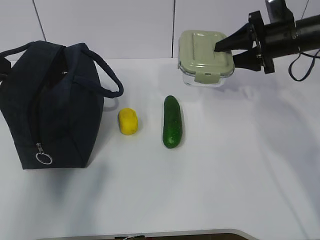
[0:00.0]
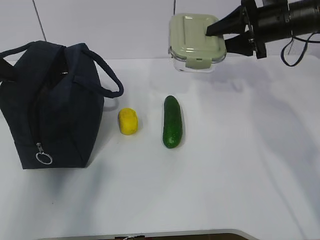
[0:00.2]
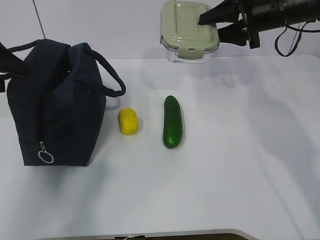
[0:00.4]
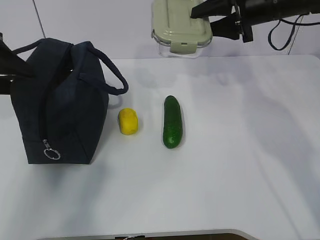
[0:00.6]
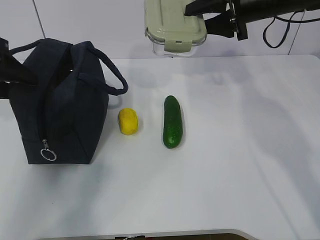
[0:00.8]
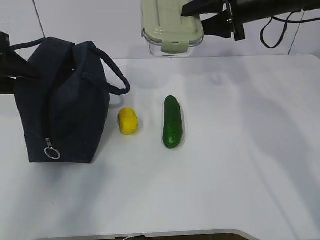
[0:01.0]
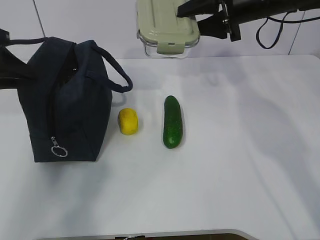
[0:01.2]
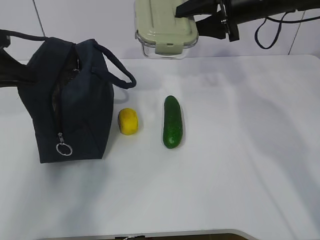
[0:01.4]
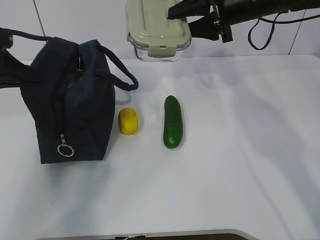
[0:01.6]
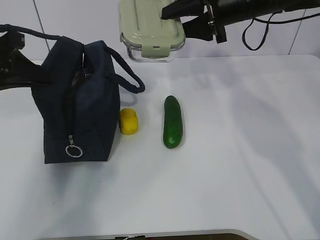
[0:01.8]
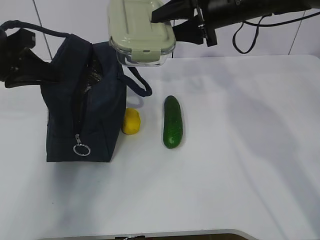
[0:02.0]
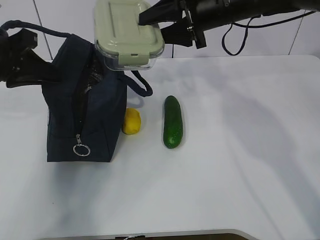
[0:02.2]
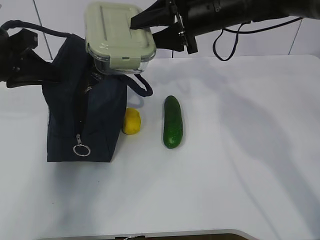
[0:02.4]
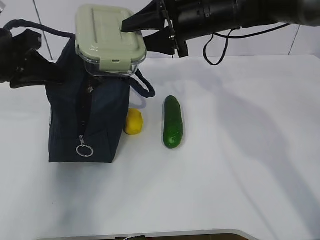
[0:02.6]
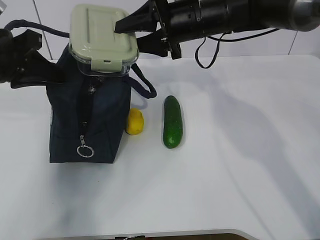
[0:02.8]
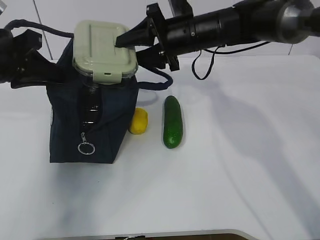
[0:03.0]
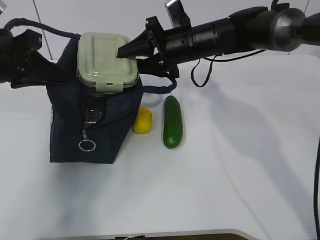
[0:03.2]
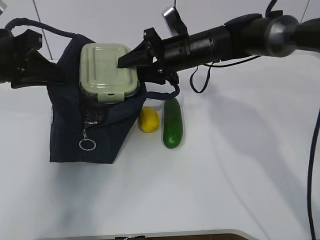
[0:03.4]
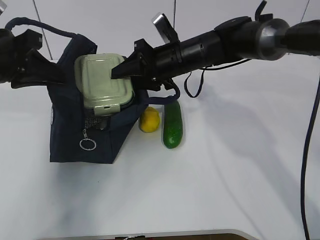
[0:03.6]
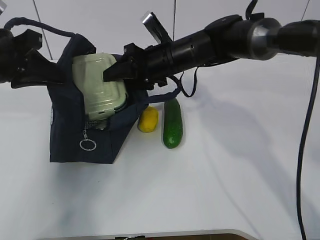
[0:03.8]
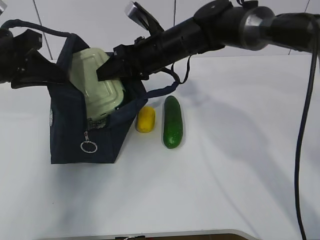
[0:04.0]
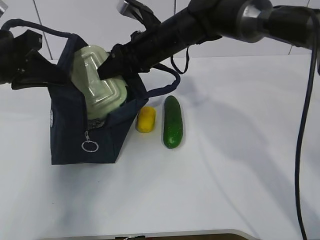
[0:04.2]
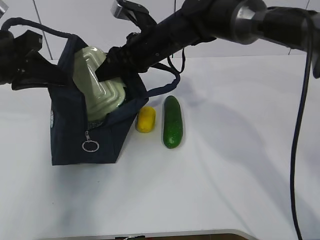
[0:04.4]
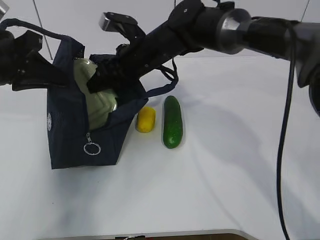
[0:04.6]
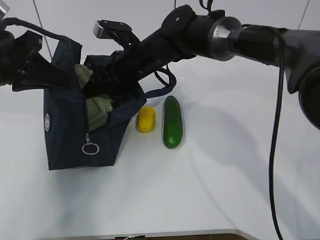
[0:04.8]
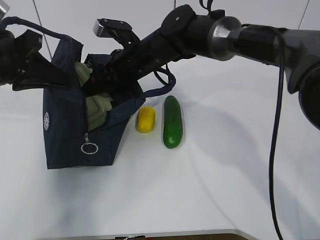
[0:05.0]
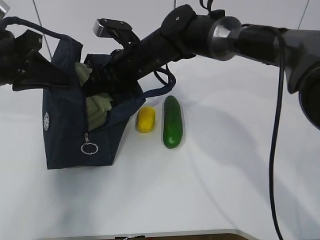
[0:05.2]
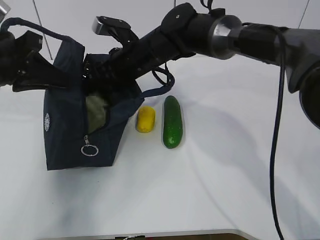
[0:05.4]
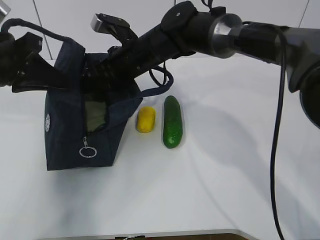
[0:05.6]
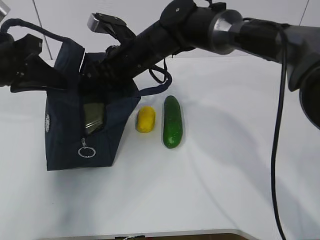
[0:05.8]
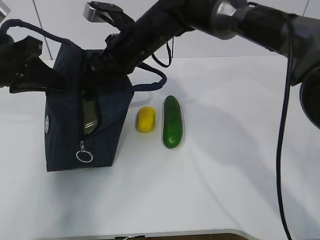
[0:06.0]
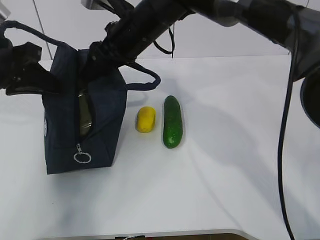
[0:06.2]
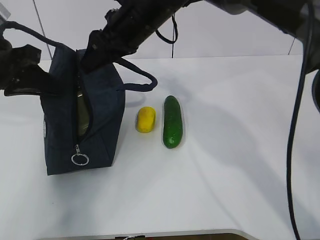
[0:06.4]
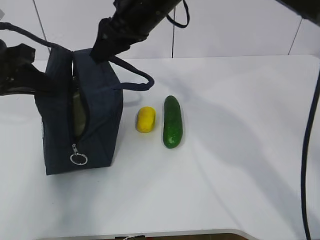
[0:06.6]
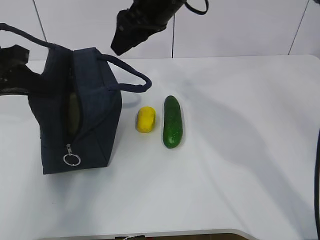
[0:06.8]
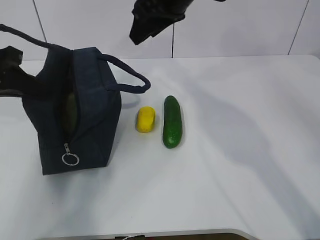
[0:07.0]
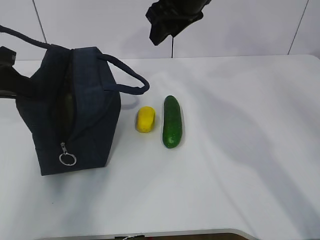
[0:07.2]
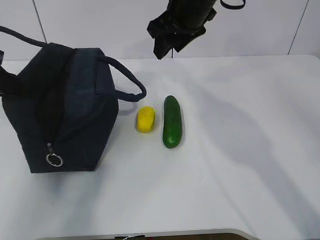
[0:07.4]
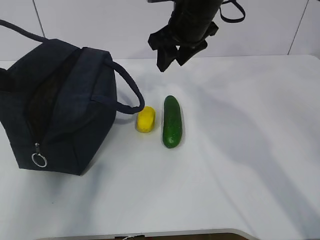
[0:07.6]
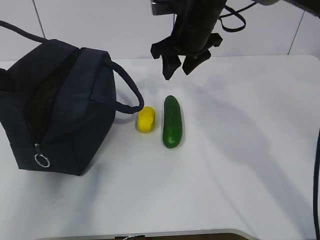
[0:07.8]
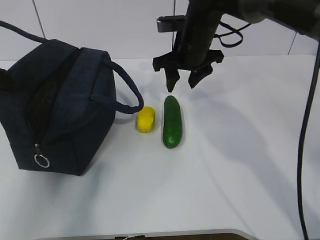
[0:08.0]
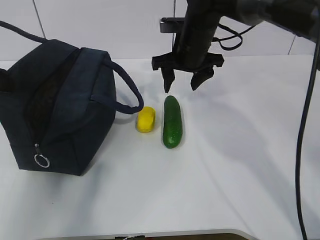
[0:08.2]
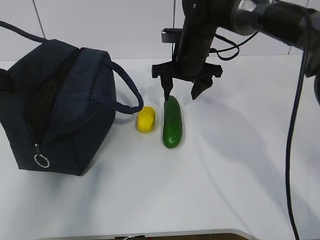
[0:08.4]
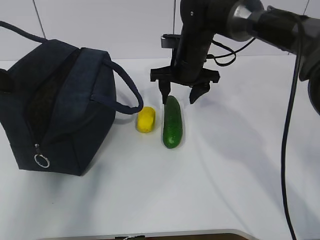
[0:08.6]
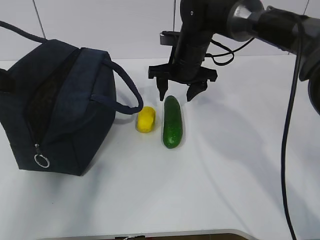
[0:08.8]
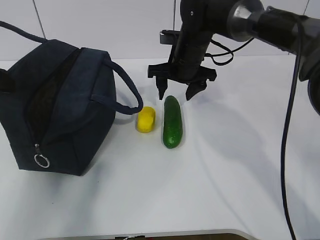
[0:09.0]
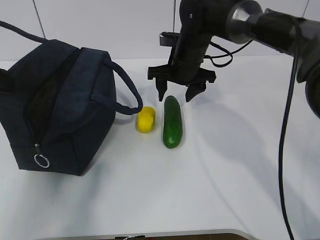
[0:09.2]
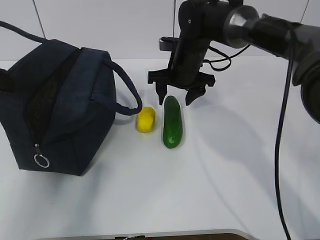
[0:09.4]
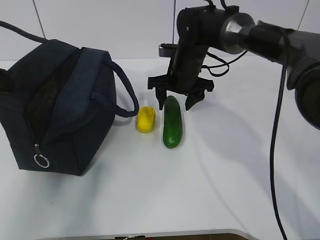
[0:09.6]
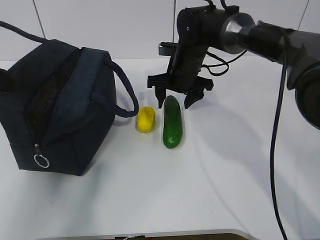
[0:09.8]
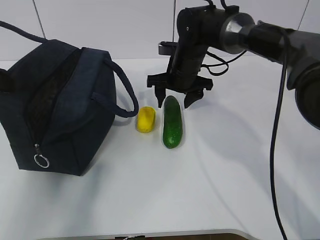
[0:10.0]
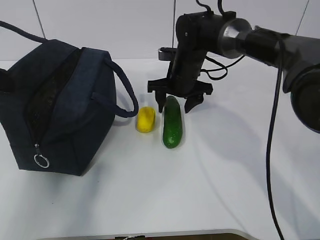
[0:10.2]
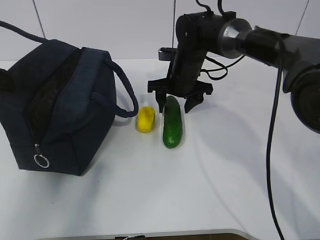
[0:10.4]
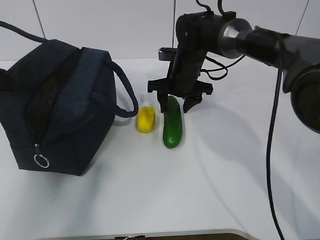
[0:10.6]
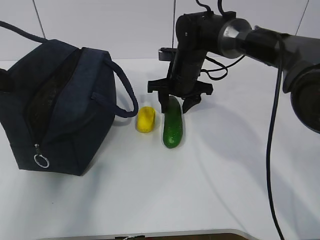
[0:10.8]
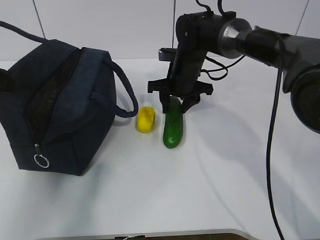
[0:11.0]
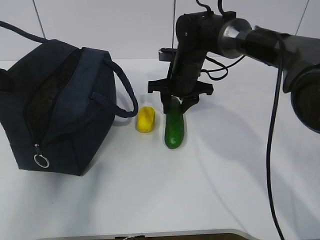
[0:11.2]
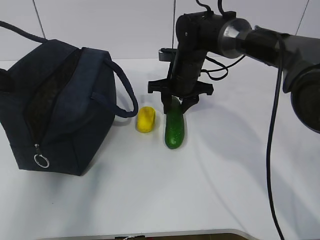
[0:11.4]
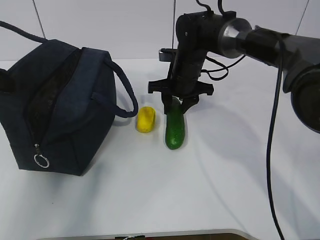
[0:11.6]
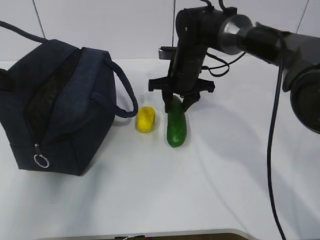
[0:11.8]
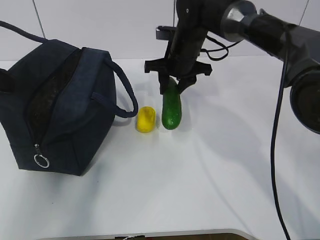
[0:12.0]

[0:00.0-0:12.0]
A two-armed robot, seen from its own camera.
Step, 0:00.0 to 0:02.0: Place it into the bag with your right hand.
Step, 0:02.2 to 0:06.8: Grab the cucumber with your right hand.
Step, 0:07.2 to 0:09.4: Place it into the bag with your right hand.
0:00.0 to 0:01.6: The left gripper changes place by about 5 cm, and closes up; the right gripper shifts some 10 cm to the left and upward.
0:01.6 to 0:03.0: The right gripper is displaced to the left and downward by about 10 cm.
0:03.0 to 0:04.4: The right gripper moves to the left, approximately 5 cm.
0:06.0 to 0:07.6: The left gripper travels to the left by about 5 cm. Meanwhile the right gripper goes about 10 cm to the right and upward.
0:07.6 to 0:09.0: The right gripper shifts approximately 10 cm downward.
0:09.0 to 0:10.4: There are only small adjustments of the grippers.
0:10.4 to 0:12.0: The right gripper closes its fingers.

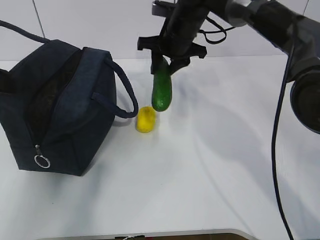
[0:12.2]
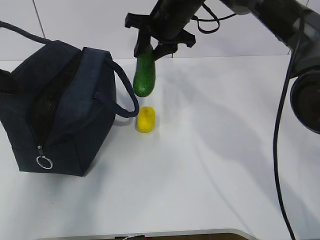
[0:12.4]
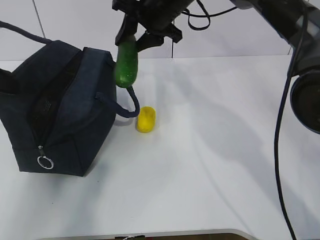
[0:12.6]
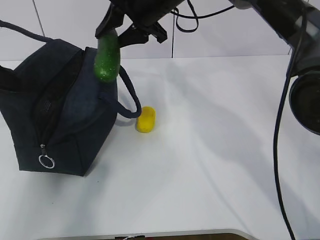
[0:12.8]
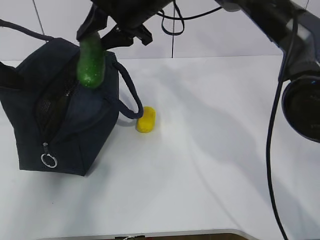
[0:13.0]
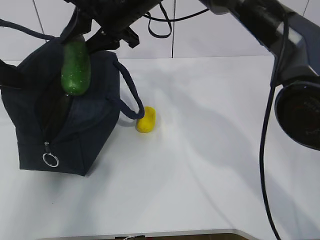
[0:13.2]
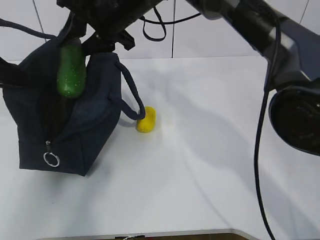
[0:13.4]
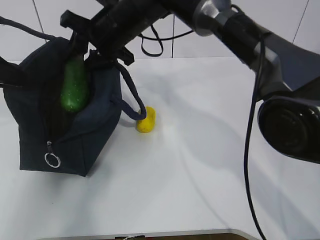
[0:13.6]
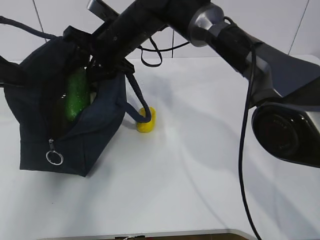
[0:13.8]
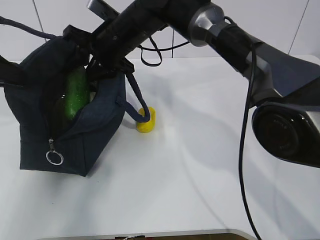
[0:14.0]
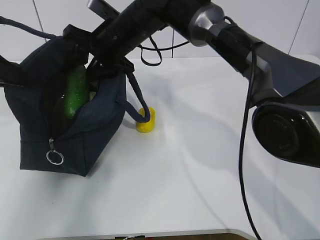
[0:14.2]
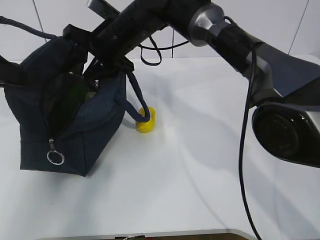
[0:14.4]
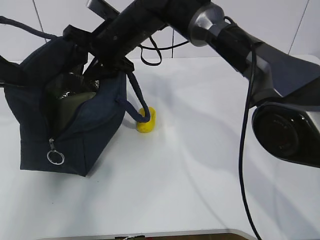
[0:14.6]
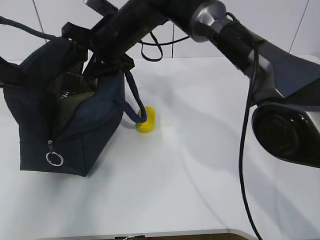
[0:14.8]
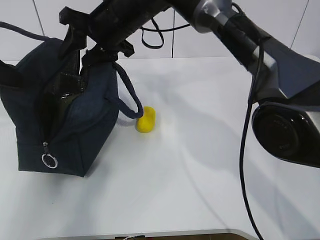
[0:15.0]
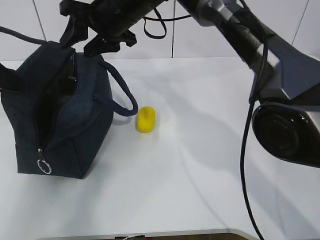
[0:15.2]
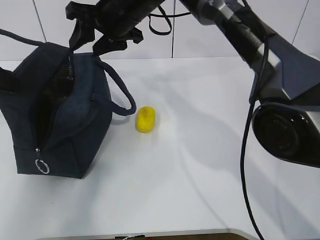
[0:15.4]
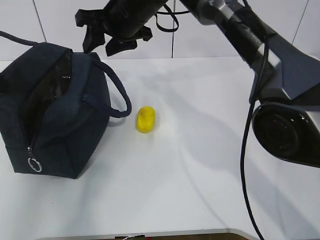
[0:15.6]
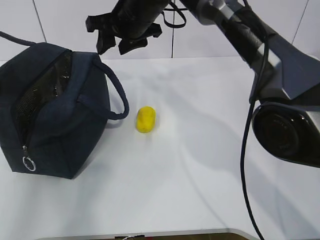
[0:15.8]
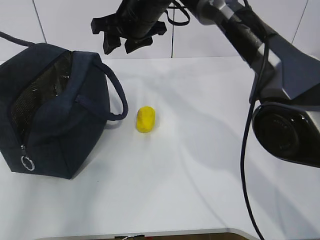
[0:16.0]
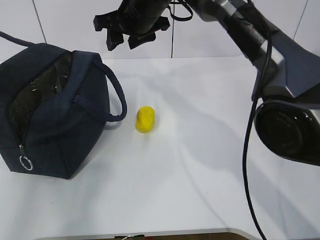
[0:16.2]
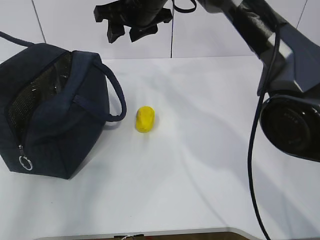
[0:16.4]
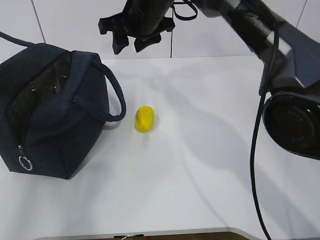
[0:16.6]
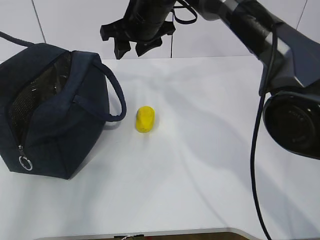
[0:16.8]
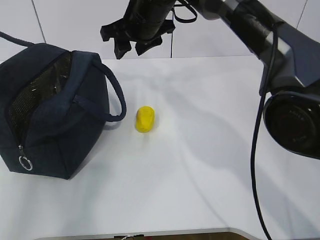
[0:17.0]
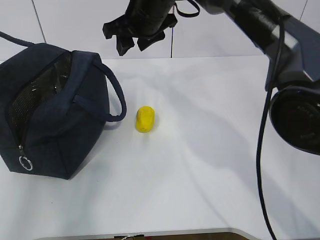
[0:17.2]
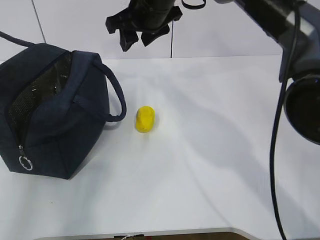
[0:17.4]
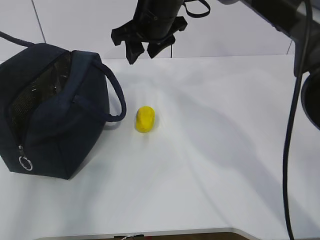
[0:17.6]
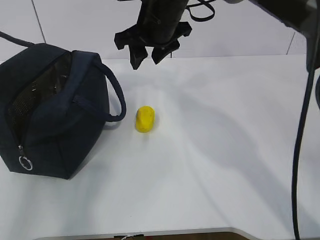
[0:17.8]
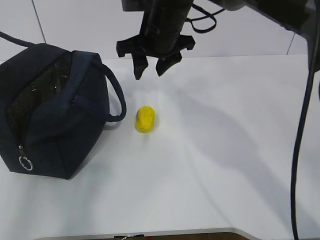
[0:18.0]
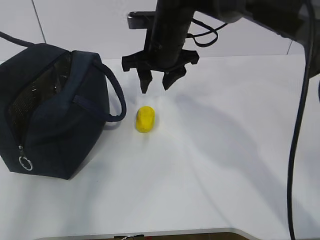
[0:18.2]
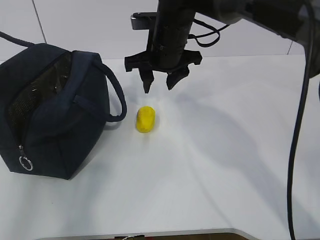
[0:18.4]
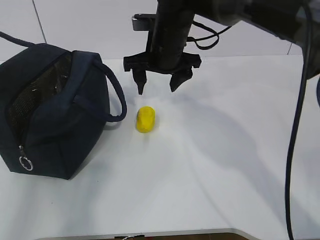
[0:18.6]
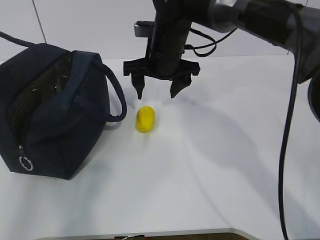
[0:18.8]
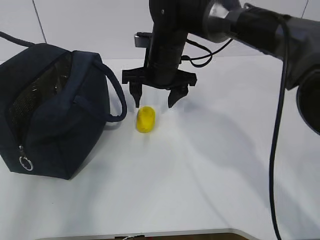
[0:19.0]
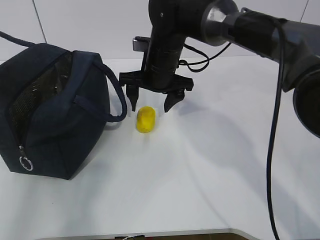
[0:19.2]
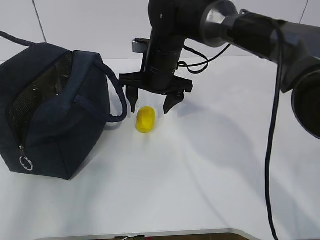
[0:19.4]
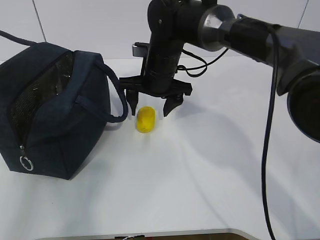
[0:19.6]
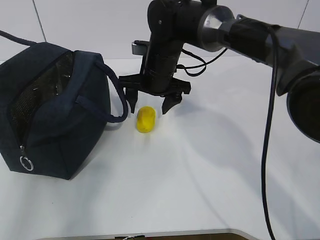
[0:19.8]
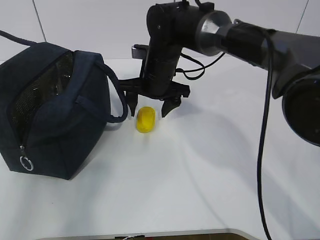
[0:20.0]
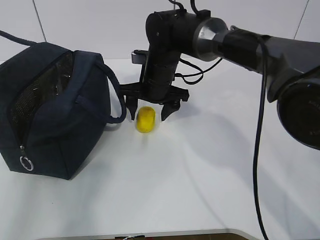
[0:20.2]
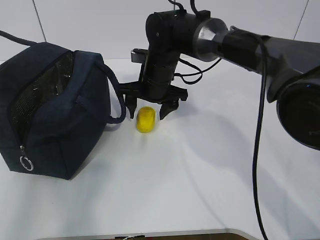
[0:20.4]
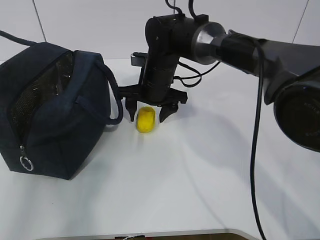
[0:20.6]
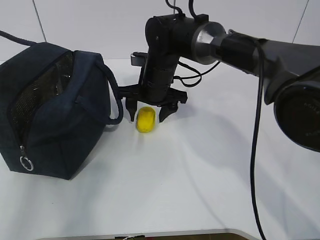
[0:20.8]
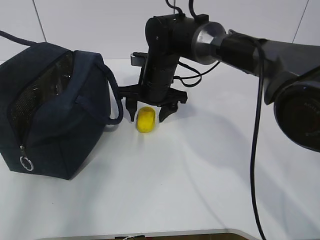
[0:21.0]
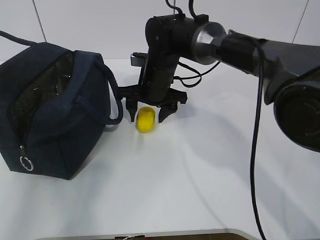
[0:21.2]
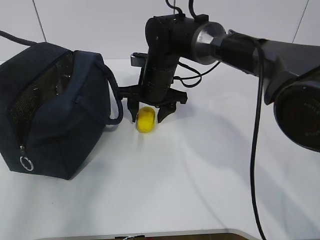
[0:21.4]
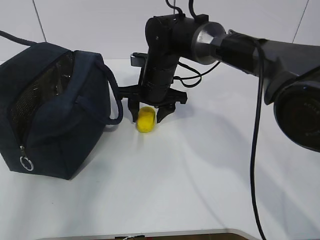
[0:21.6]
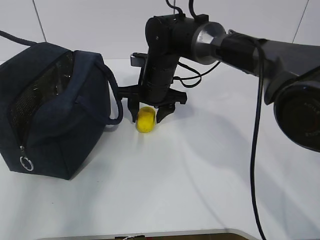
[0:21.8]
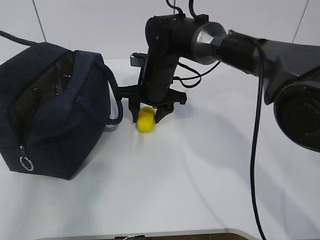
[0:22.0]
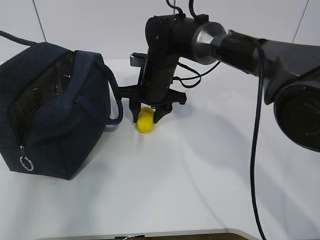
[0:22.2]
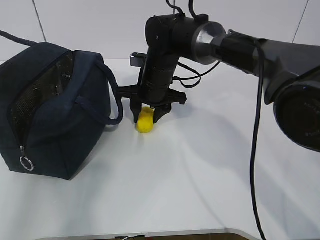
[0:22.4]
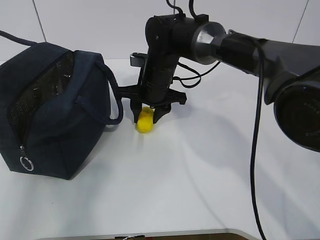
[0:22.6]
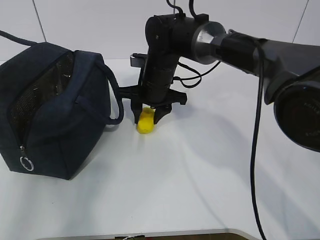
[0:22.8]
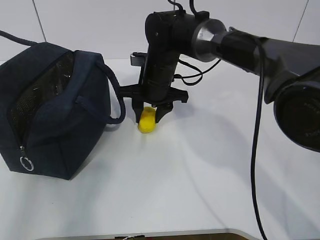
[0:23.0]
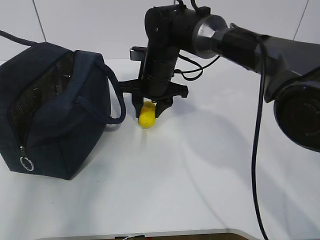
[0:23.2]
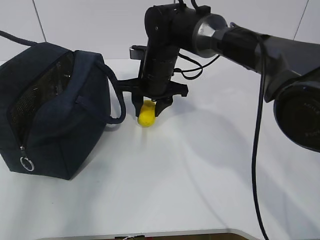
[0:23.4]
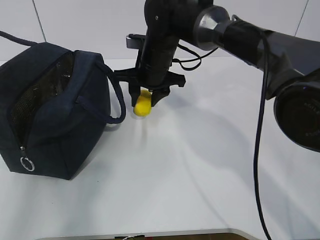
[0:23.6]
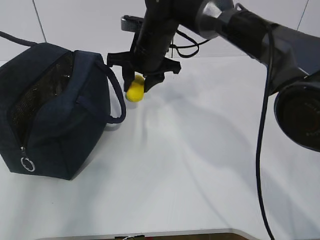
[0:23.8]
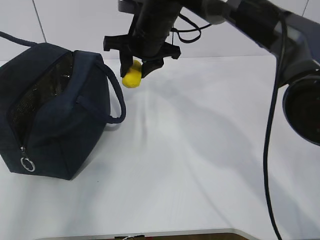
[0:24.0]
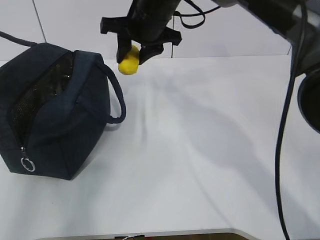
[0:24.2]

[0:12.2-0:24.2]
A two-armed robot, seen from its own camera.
Step, 0:12.2 to 0:16.2: Grab the lemon with your right hand.
Step, 0:19.8 to 0:22.6: Grab the lunch bag with your right hand.
0:12.2 to 0:13.8: The right gripper shifts roughly 10 cm to the left.
0:16.6 to 0:18.2: The right gripper moves about 5 cm.
0:18.2 to 0:19.8: The right gripper goes some 5 cm downward.
0:19.8 to 0:21.2: The grippers stay close to where they were, moving slightly.
0:21.2 to 0:22.6: The right gripper closes its fingers.
0:22.6 to 0:24.2: The right gripper moves upward, approximately 10 cm.
